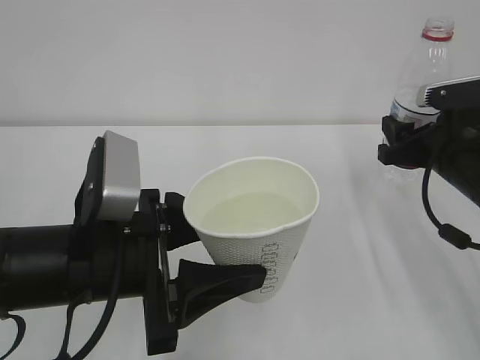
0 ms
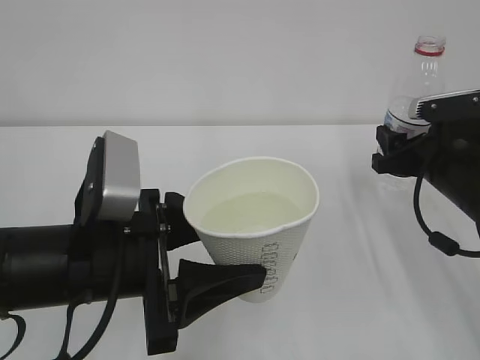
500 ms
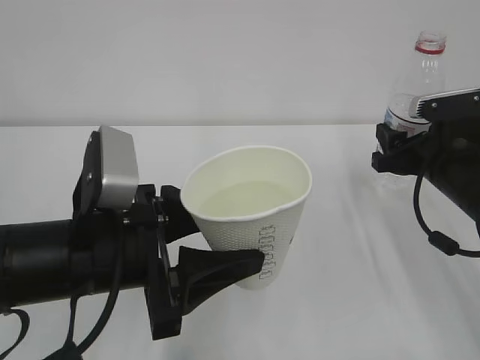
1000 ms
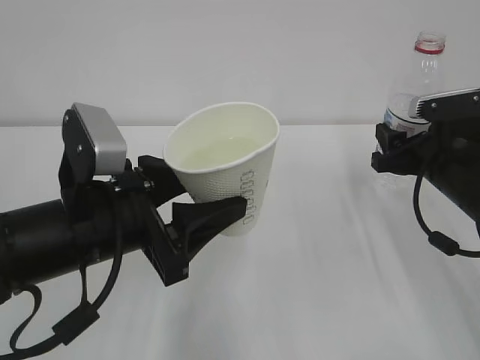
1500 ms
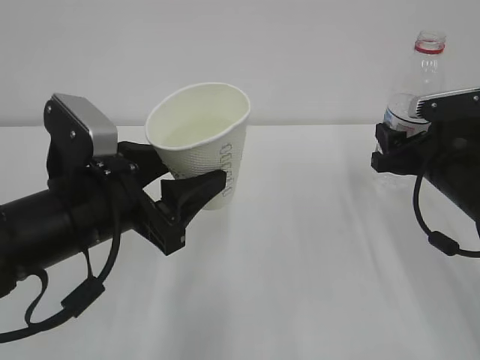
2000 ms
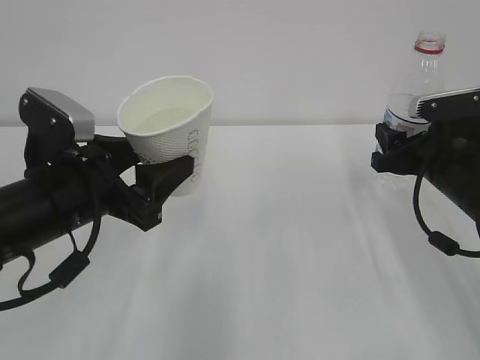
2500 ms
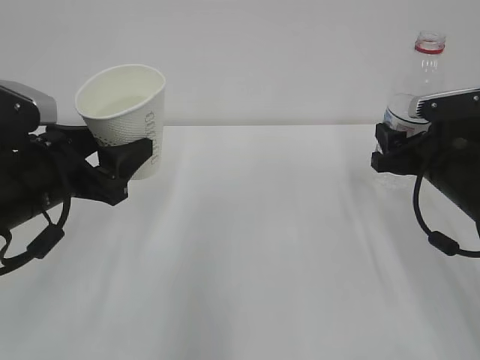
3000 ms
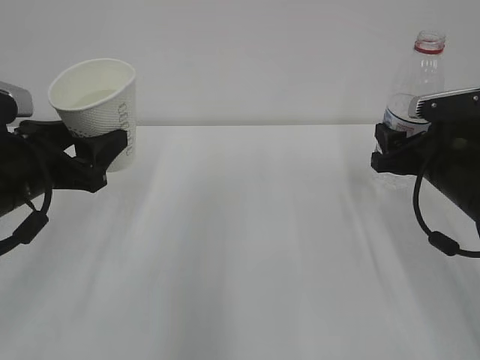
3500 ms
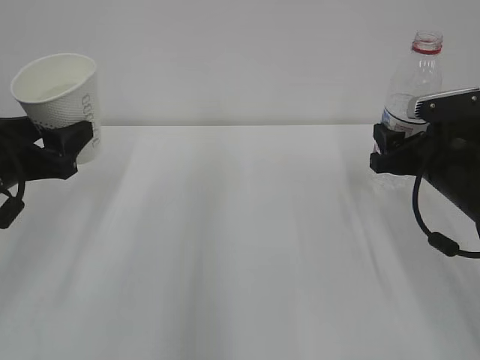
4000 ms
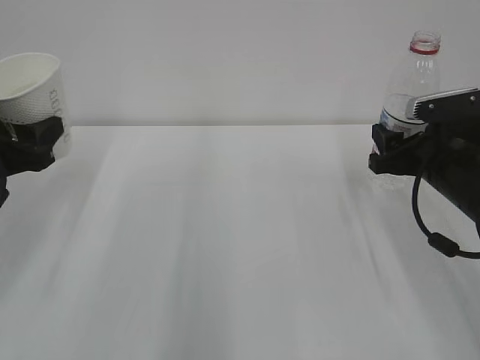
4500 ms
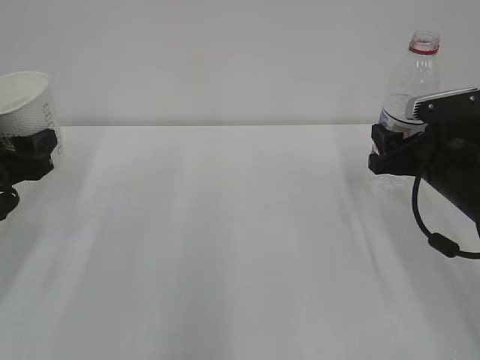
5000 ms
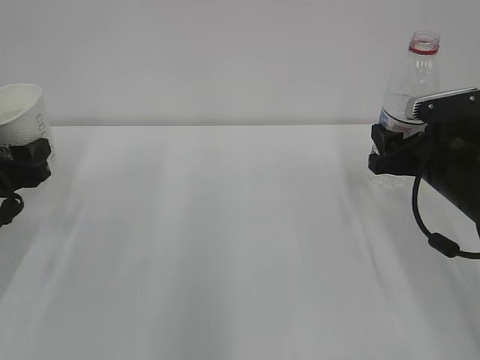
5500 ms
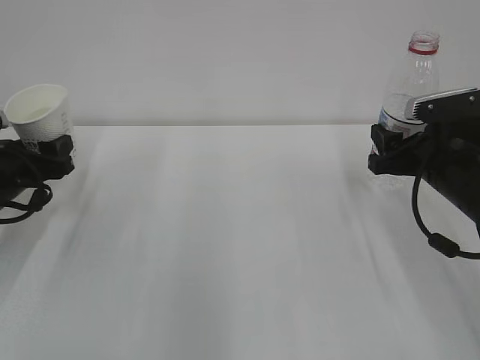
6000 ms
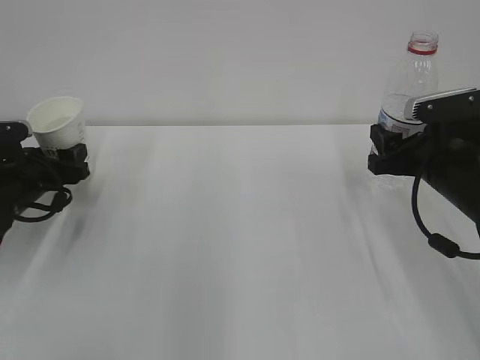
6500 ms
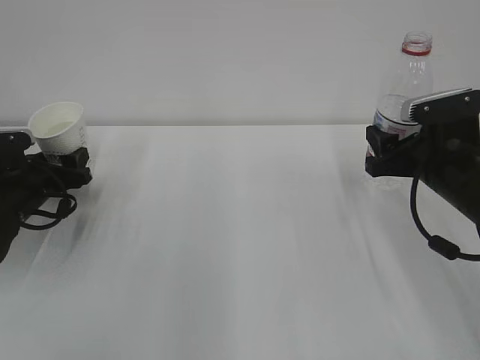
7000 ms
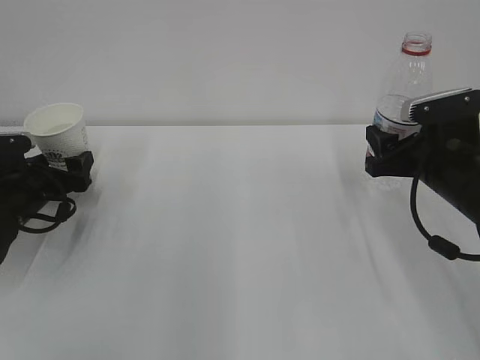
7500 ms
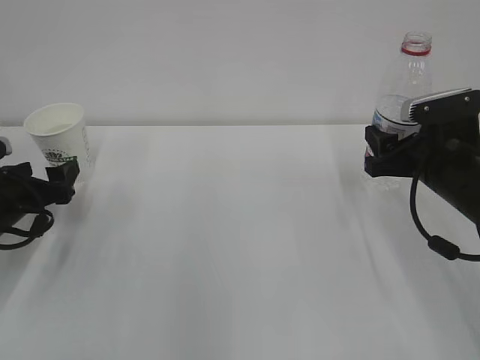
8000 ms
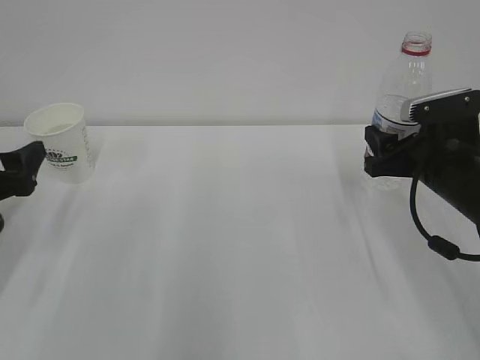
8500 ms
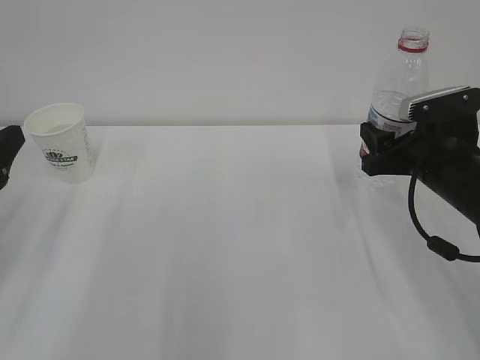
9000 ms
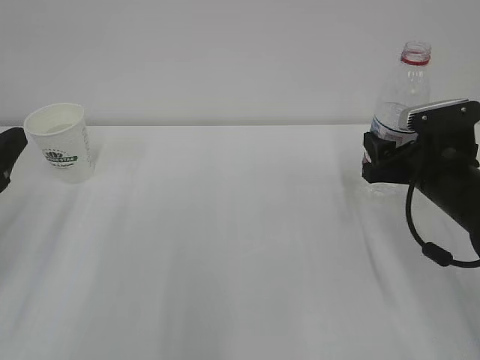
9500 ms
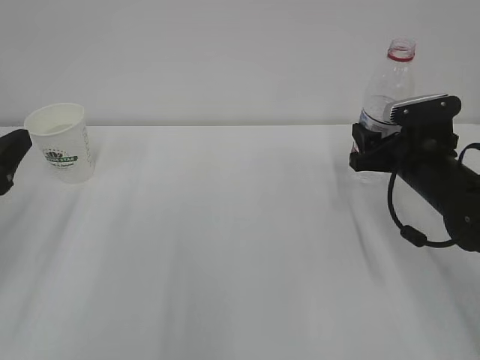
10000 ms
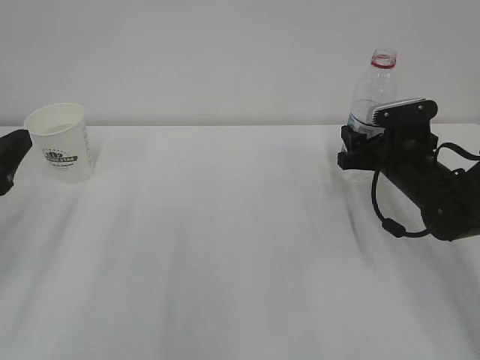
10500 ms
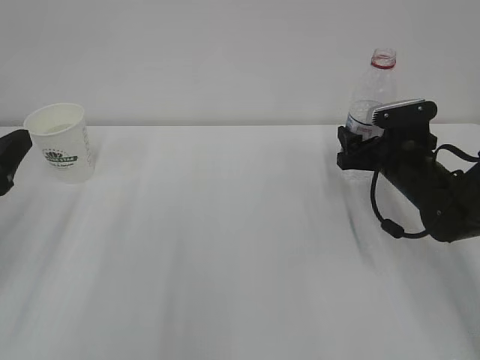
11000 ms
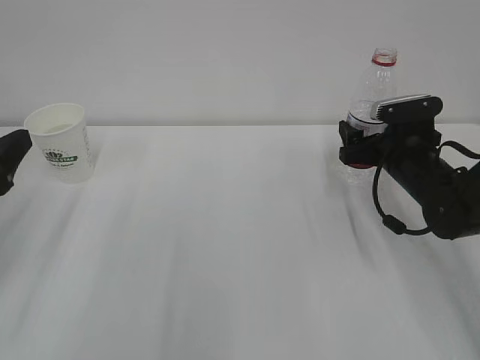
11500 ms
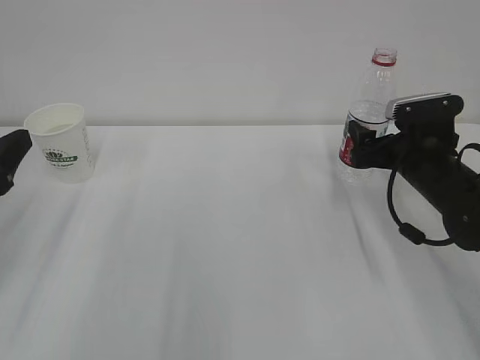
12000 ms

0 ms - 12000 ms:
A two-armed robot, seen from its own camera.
2000 ms - 4000 ms: The left gripper heads to the left and forward, covering approximately 15 cm.
4000 ms - 6000 ms: The left gripper moves downward and forward, roughly 10 cm.
6000 ms - 8000 ms: The left gripper opens.
8000 ms - 10000 ms: The left gripper goes approximately 15 cm upward and backward.
10000 ms - 12000 ms: The right gripper opens up.

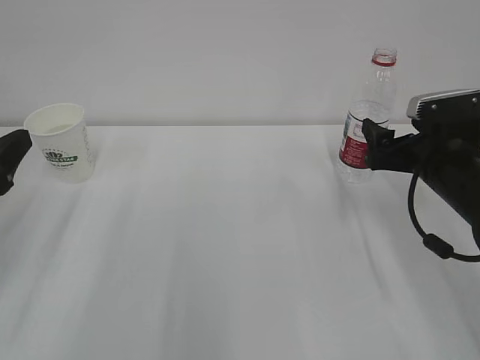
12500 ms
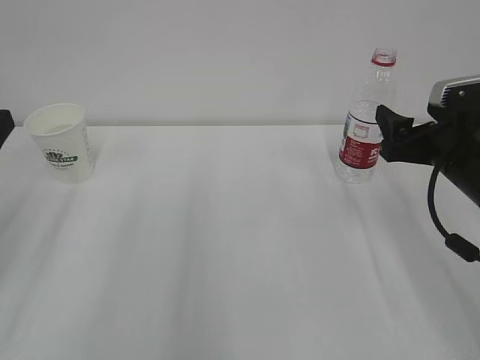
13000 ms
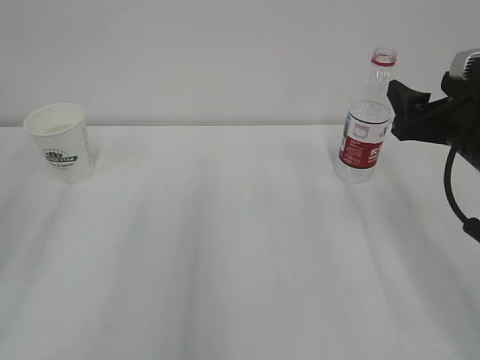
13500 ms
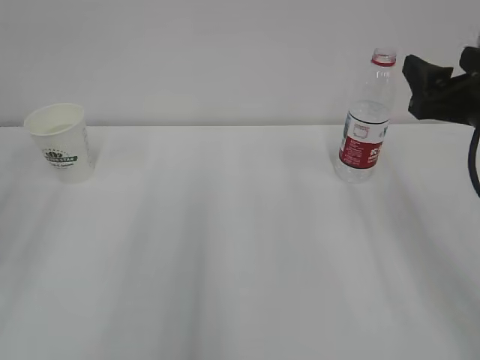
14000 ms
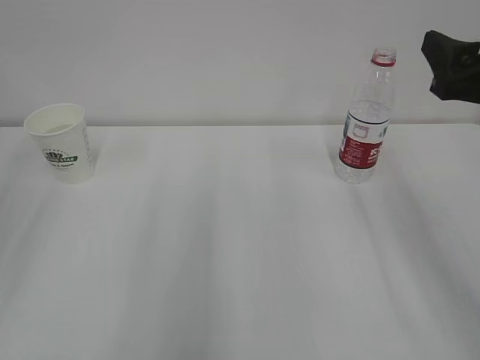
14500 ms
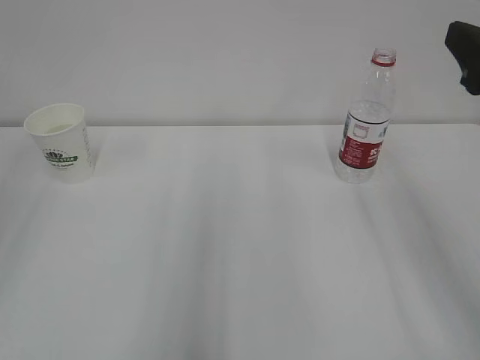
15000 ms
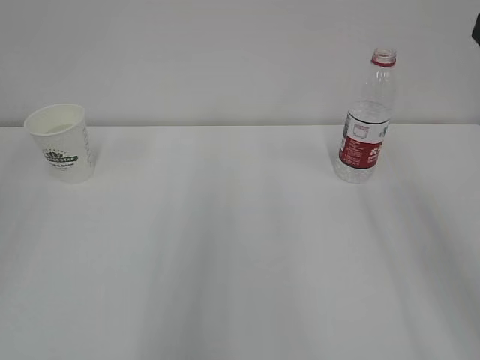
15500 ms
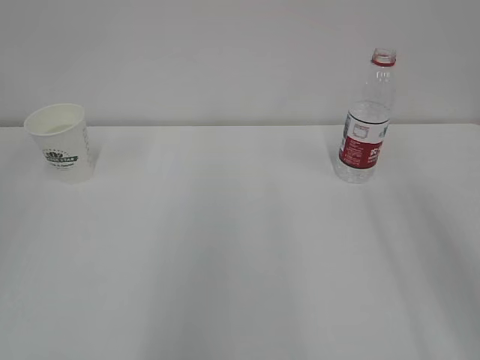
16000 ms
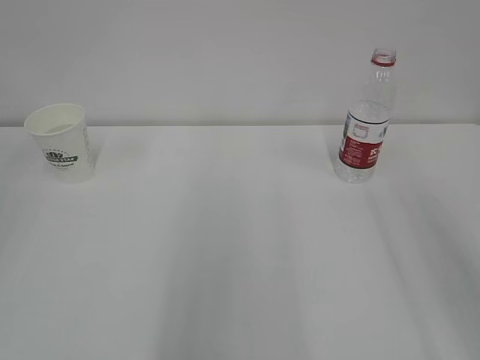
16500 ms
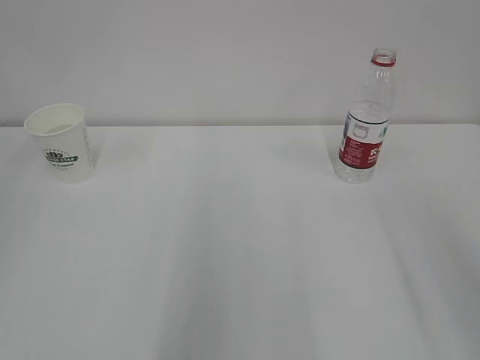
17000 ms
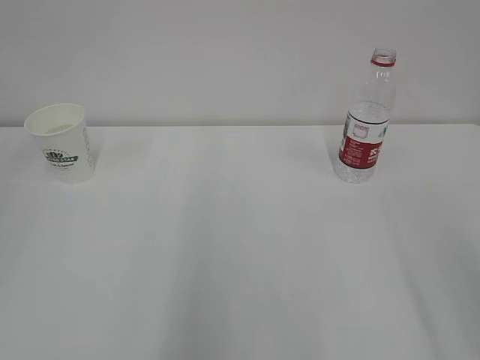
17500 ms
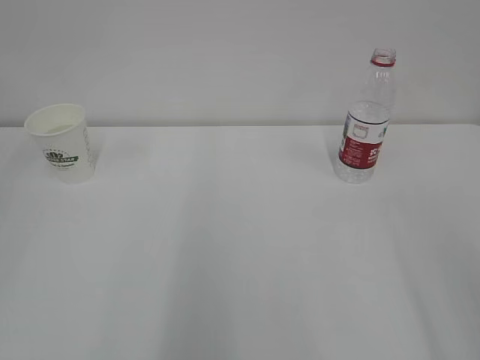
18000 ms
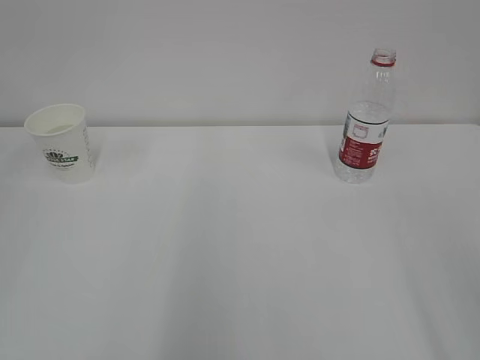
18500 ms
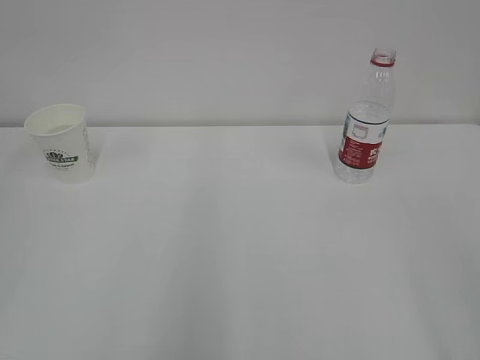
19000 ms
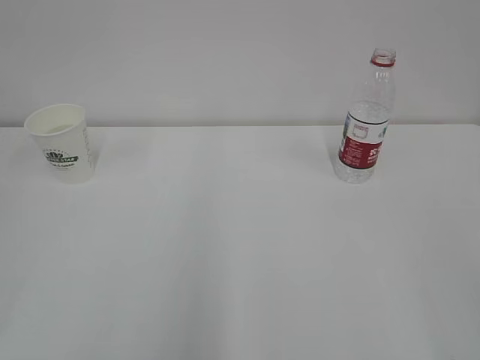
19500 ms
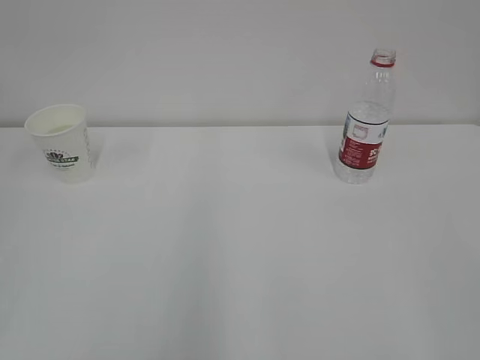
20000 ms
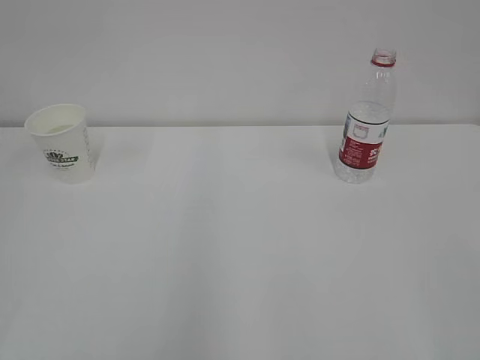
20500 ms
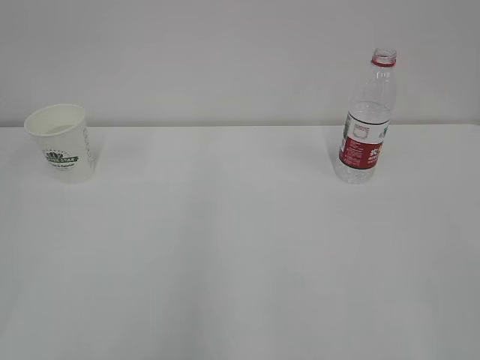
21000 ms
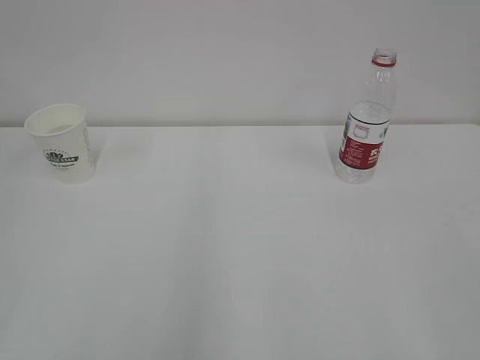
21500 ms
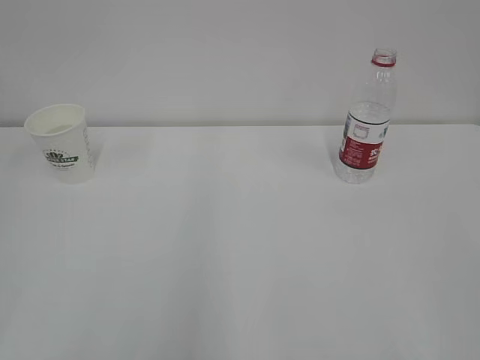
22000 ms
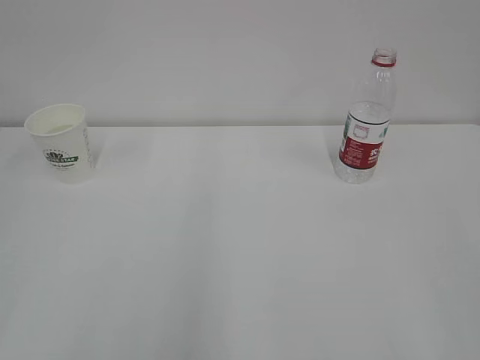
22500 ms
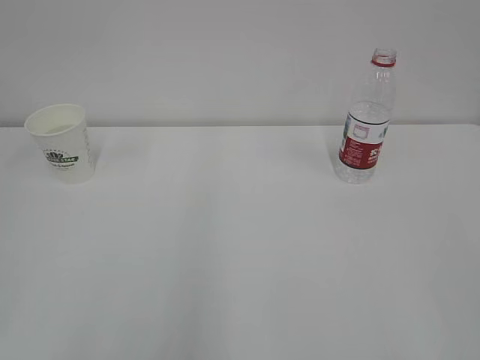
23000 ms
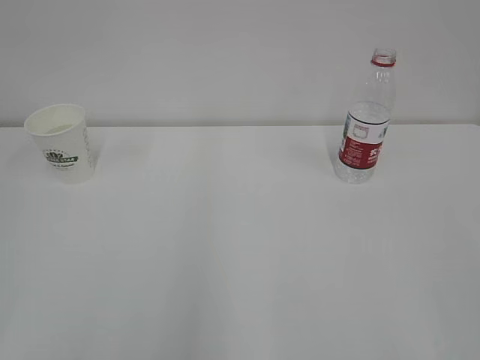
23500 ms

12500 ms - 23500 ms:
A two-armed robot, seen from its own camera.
12500 ms - 14500 ms: Both grippers move upward and backward, about 15 cm.
14500 ms - 16000 ms: The right gripper shifts some 10 cm backward and upward.
21500 ms - 23500 ms: Both grippers stay put.

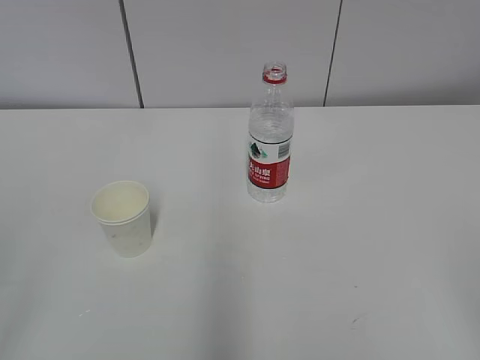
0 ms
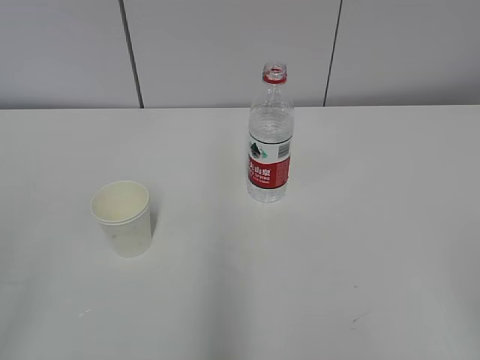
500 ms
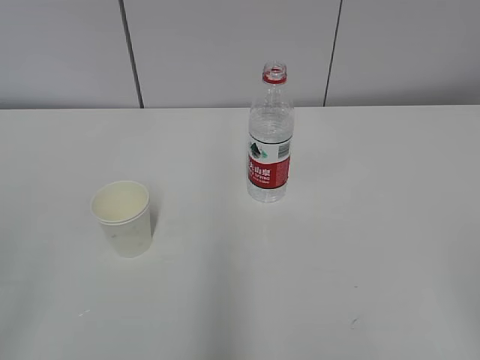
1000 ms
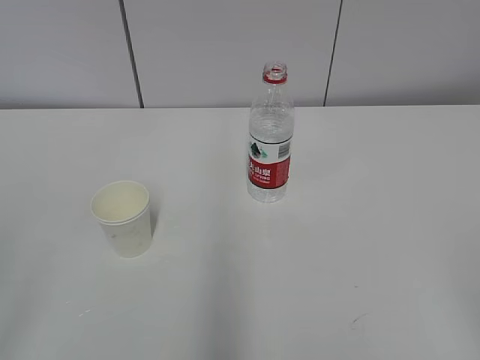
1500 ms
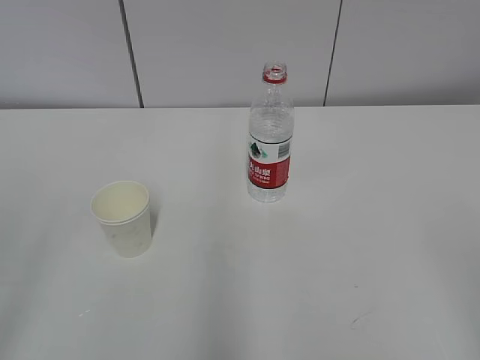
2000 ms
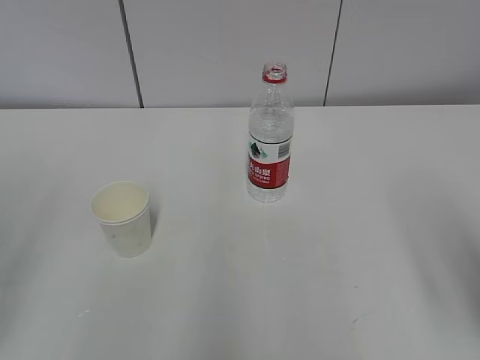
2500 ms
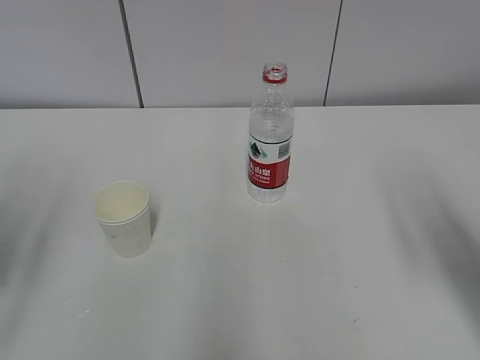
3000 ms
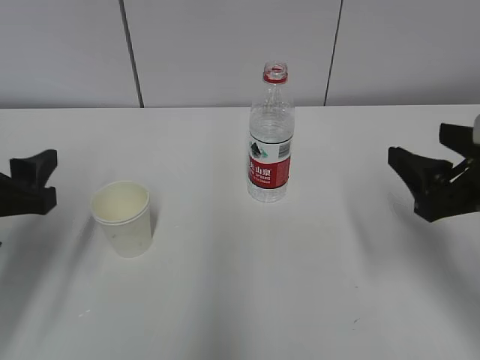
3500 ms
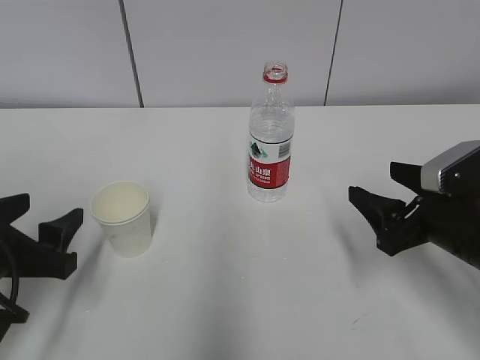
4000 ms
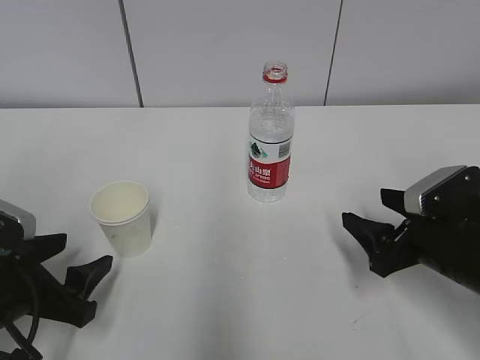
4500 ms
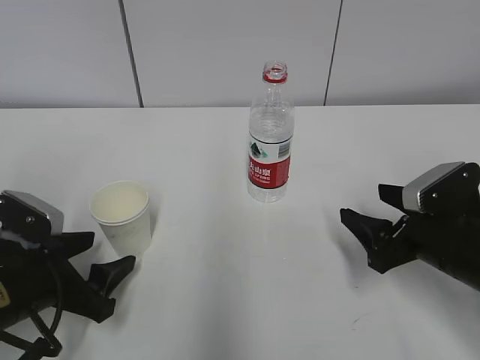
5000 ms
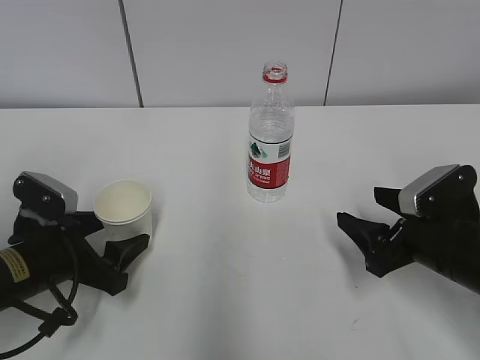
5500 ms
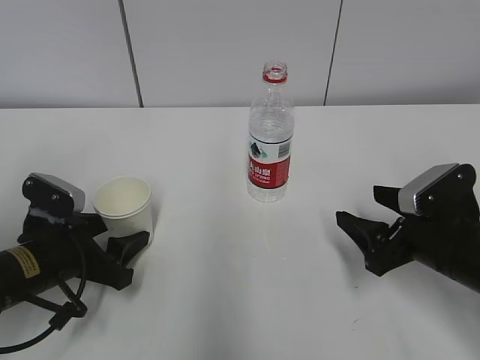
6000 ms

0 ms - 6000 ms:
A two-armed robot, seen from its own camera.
2000 ms - 4000 ms: Both grippers move forward and downward, some 30 cm.
4000 ms - 6000 ms: The left gripper moves downward and forward, roughly 10 cm.
